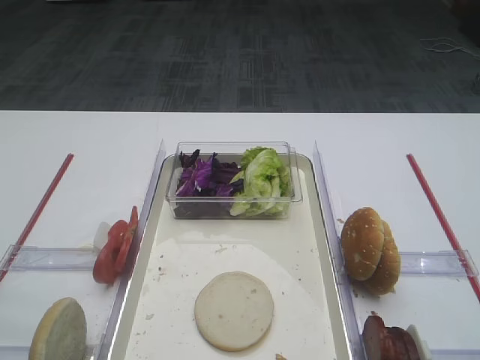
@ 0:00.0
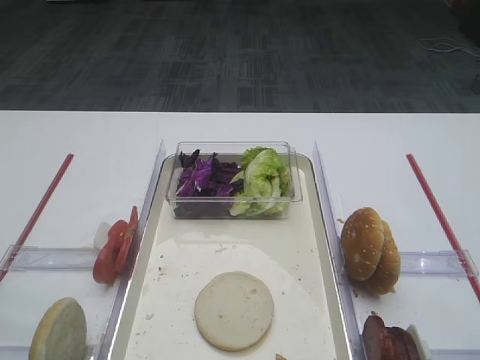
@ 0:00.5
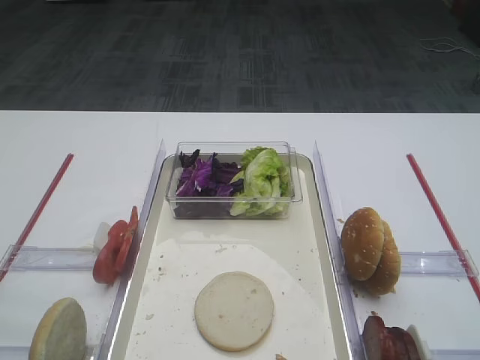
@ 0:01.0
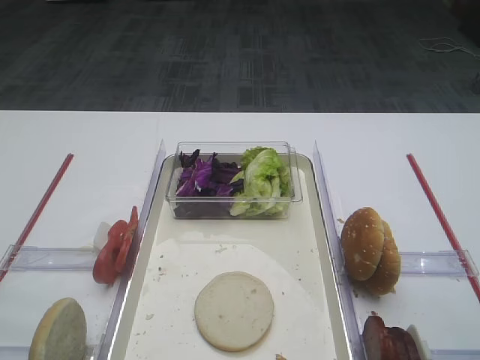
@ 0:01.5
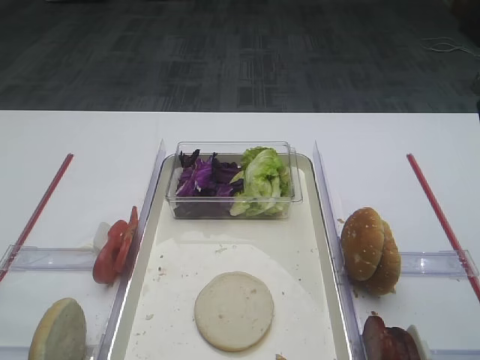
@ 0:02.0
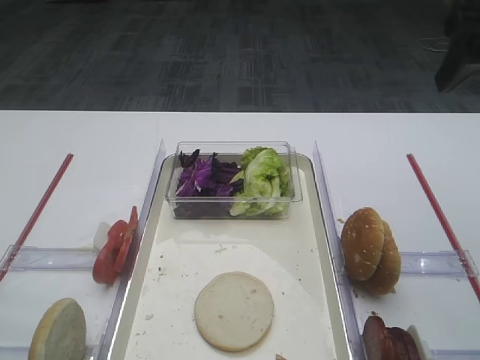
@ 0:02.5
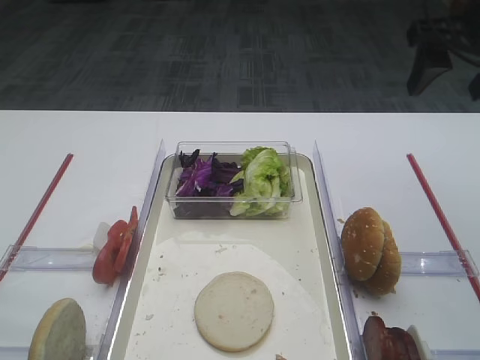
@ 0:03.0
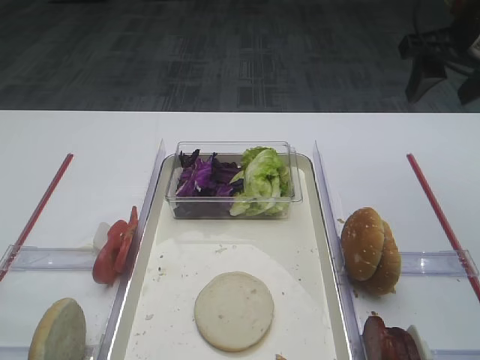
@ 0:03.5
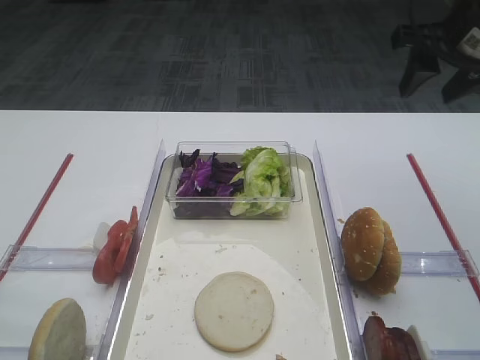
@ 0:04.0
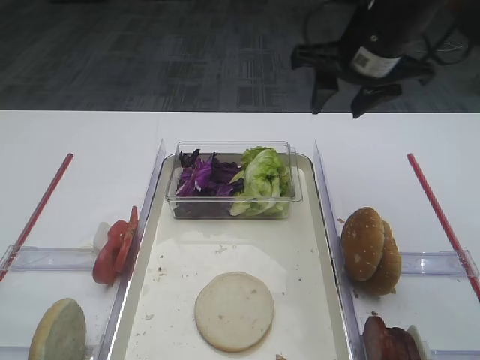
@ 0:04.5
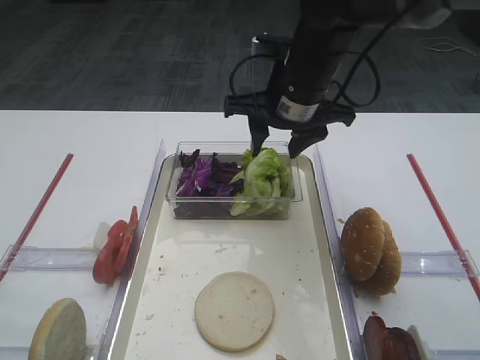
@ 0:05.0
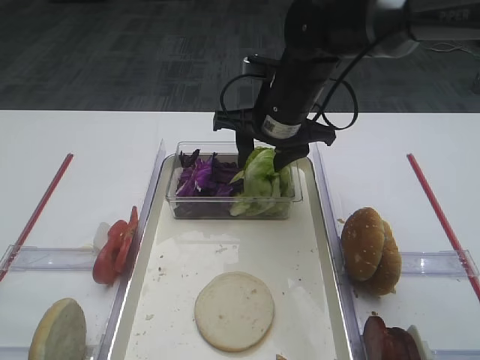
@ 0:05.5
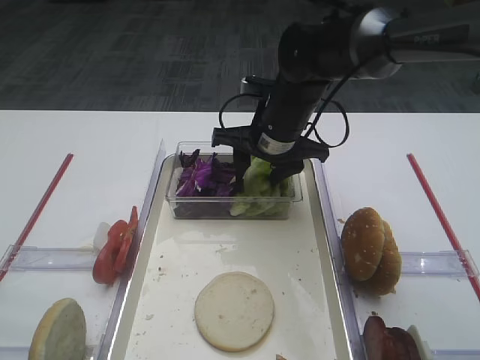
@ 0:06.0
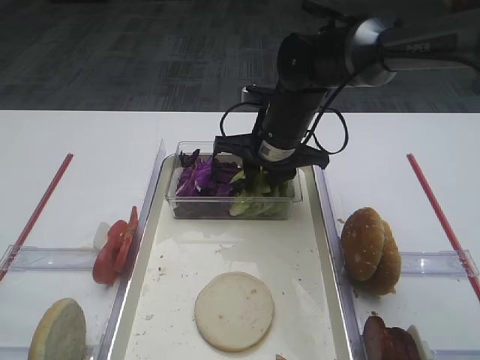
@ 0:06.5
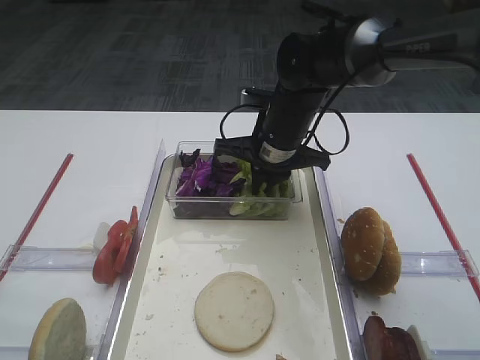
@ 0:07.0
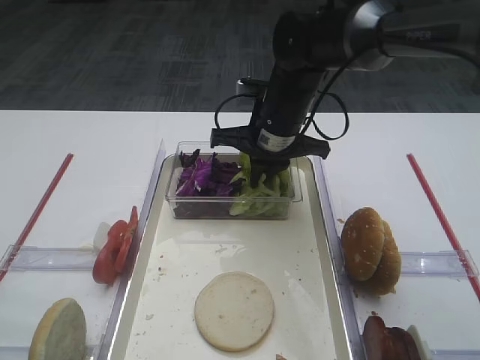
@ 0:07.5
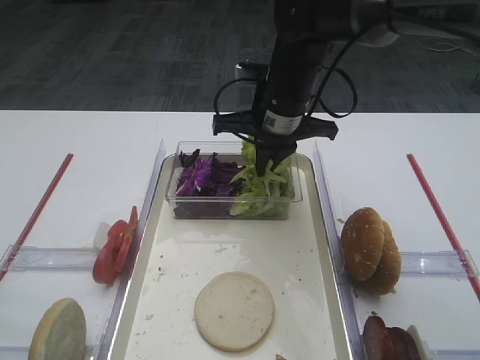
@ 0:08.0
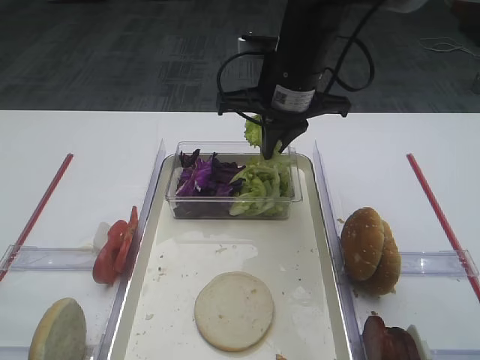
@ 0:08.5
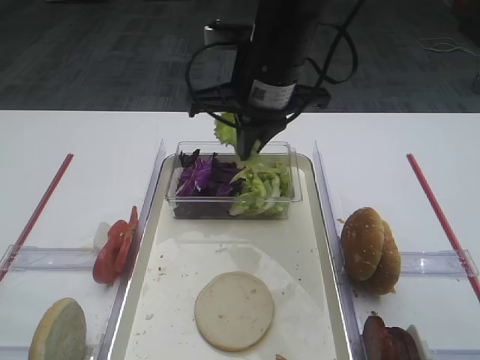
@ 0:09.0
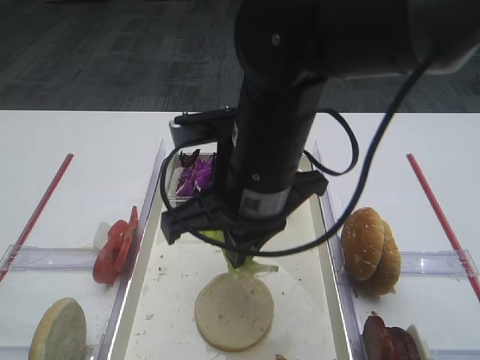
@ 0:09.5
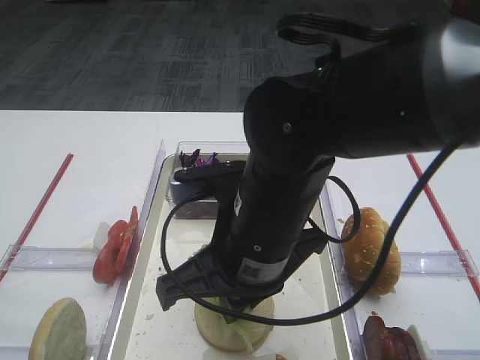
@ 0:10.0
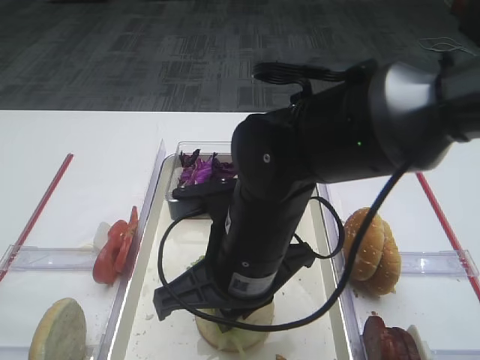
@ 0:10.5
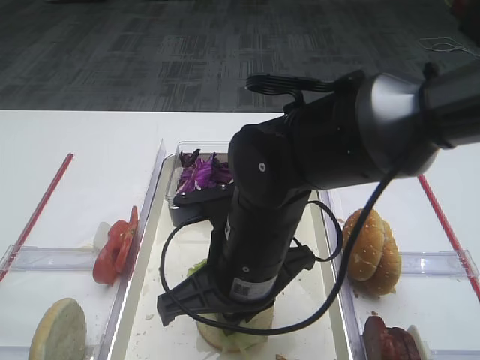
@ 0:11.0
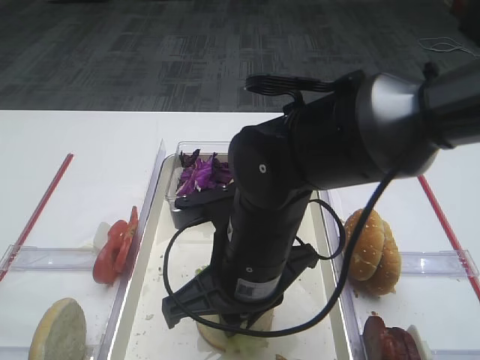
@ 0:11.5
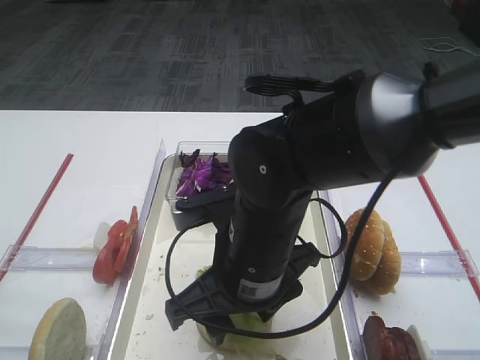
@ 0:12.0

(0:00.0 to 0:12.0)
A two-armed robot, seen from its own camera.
Step, 0:00.0 - 0:08.5: Pick up the lettuce leaf with the right gripper.
0:02.0 - 0:04.0: The right gripper shifts about 15 cm forward.
0:04.0 - 0:06.0: The right gripper is displaced to the left and downward by approximately 25 cm.
0:06.0 - 0:08.0: The right gripper closes its fingers.
0:08.0 - 0:10.0: The right gripper moves backward, roughly 20 cm.
0:10.0 - 0:12.0: The right gripper opens its fingers.

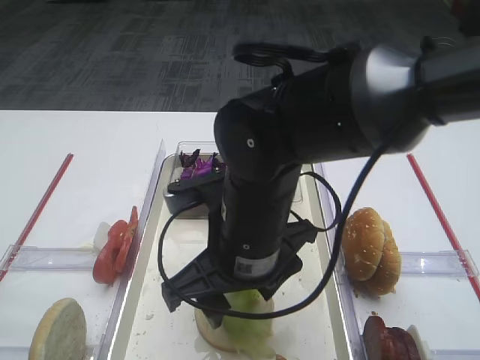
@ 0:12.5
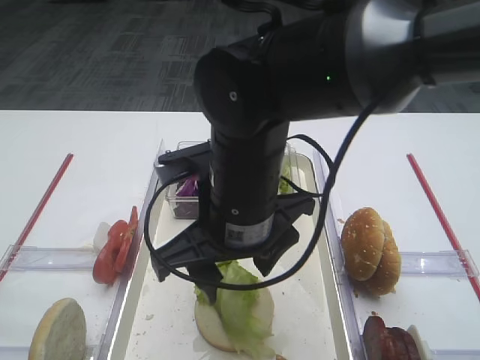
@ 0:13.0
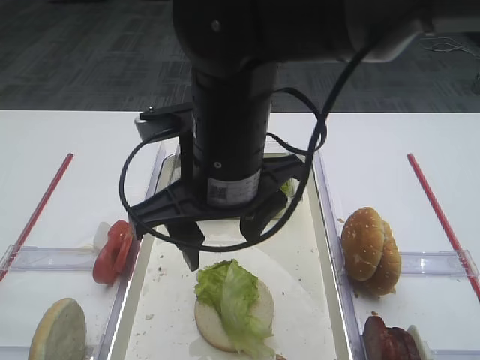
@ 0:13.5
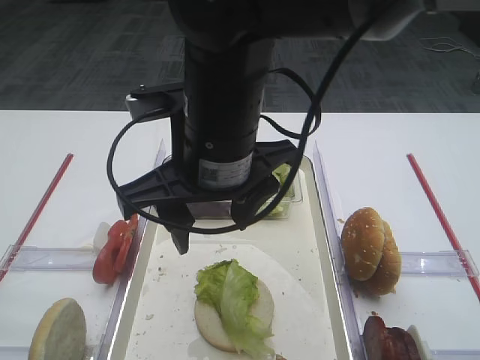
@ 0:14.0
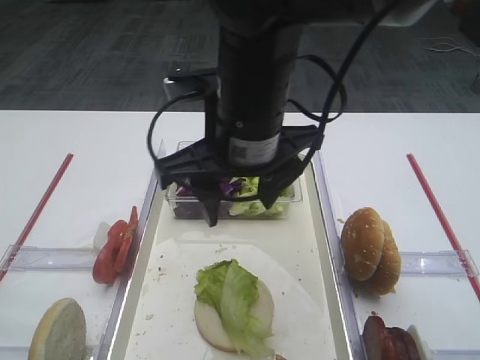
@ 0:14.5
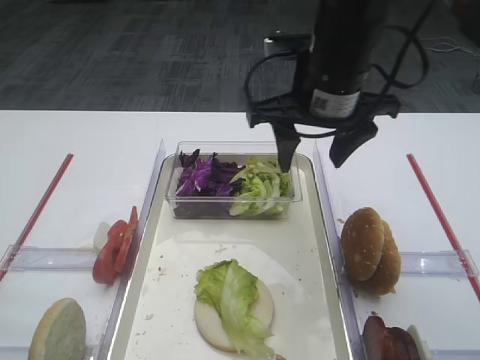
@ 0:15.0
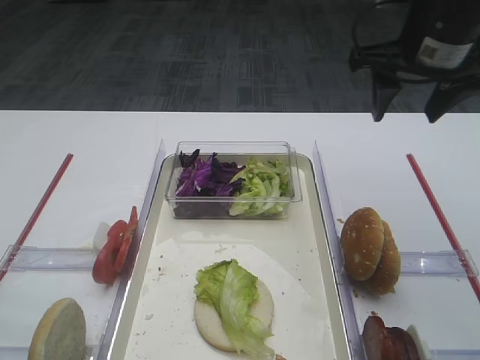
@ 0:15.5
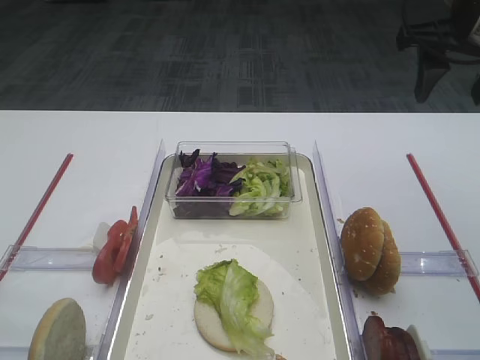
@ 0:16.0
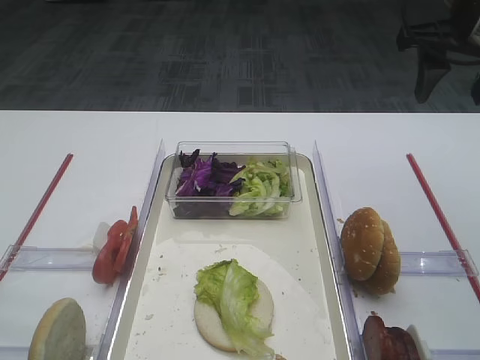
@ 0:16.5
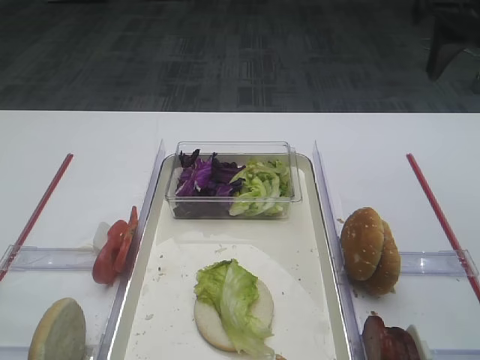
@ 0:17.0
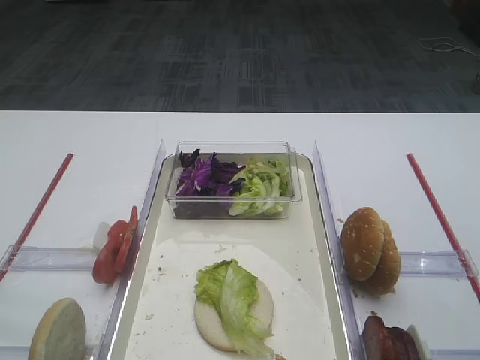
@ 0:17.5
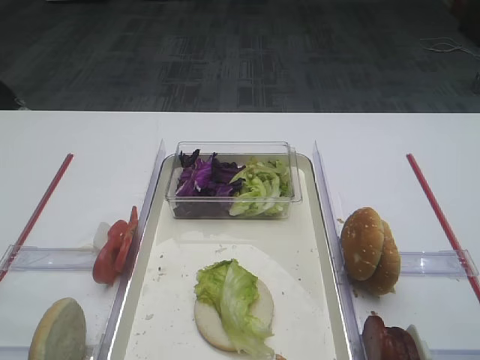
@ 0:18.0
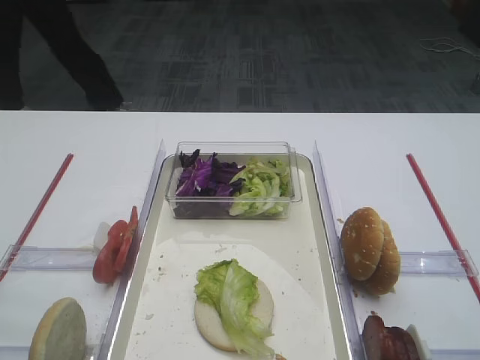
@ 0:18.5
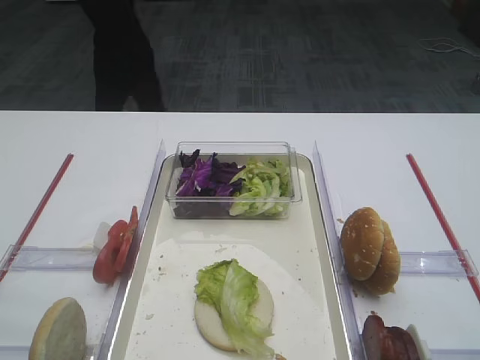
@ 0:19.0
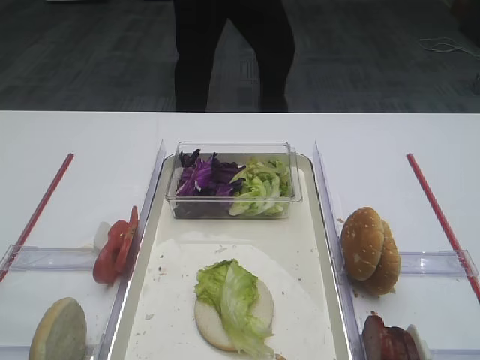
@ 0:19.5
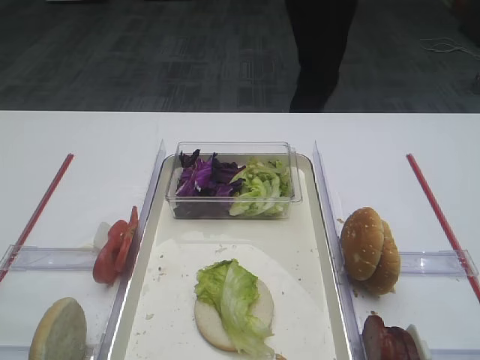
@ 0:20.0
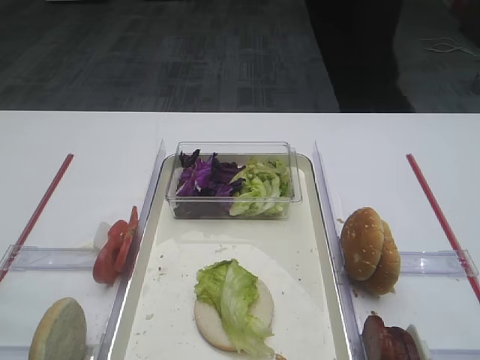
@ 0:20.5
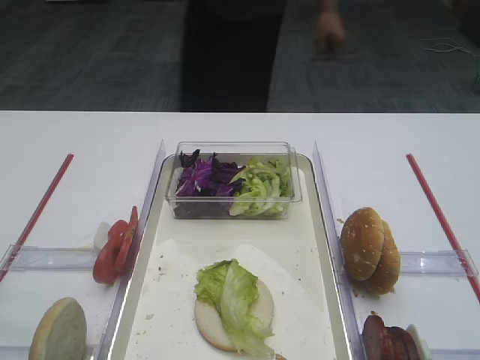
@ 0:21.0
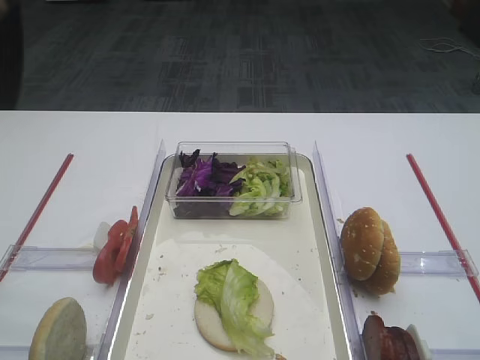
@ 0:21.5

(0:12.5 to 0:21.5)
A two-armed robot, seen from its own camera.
0:12.5 - 0:14.5: The right gripper goes approximately 10 cm upward.
0:14.5 - 0:17.0: The right gripper heads to the right, covering approximately 25 cm.
0:17.0 - 0:19.5: The right gripper moves backward, some 35 cm.
0:19.5 - 0:21.5: The grippers make only small movements.

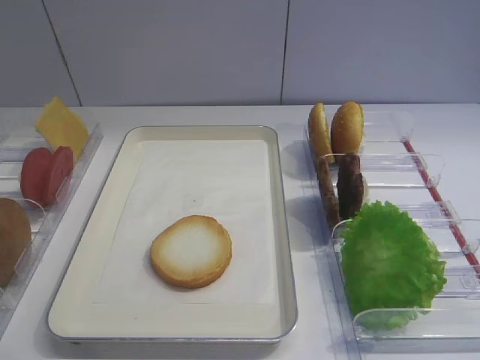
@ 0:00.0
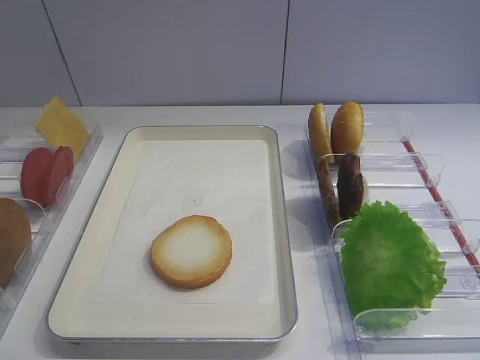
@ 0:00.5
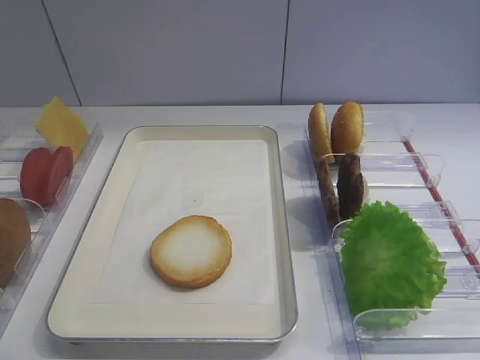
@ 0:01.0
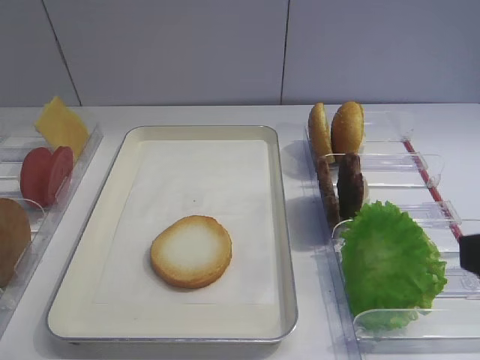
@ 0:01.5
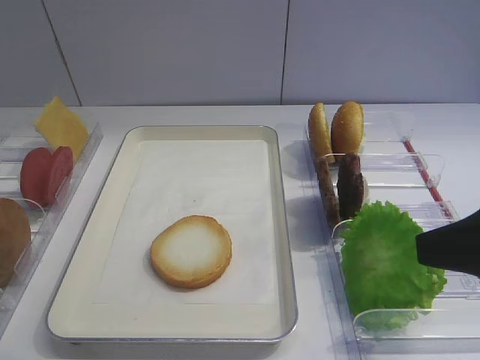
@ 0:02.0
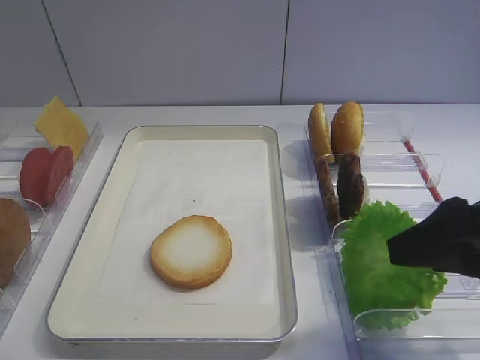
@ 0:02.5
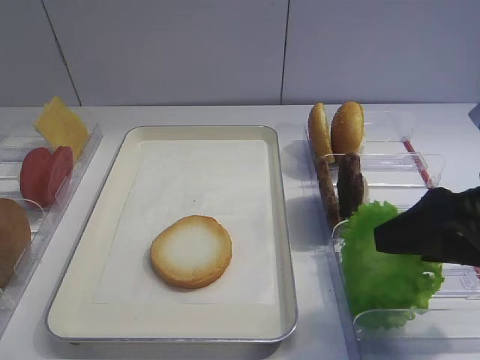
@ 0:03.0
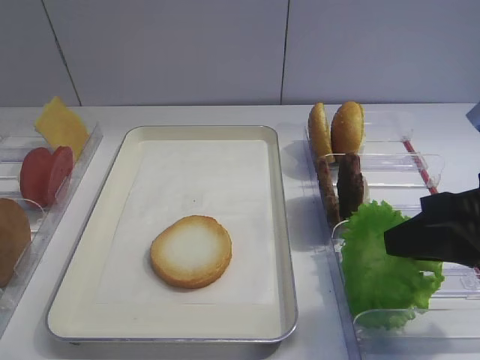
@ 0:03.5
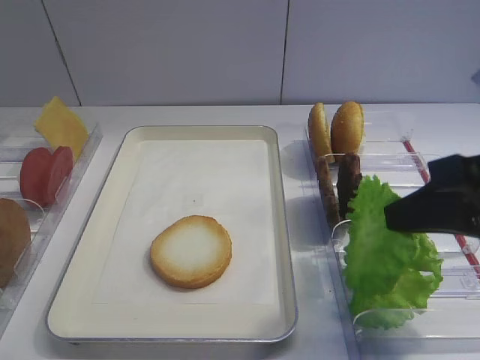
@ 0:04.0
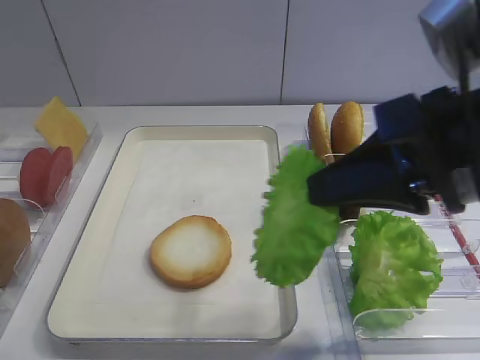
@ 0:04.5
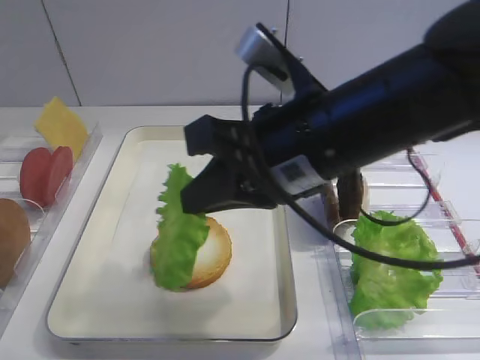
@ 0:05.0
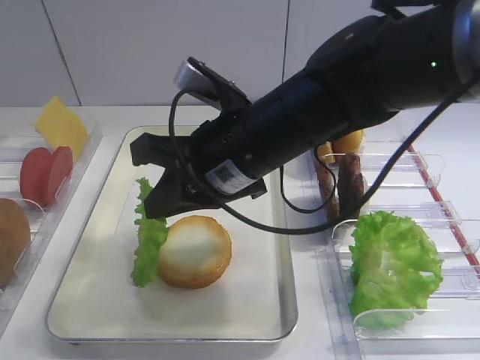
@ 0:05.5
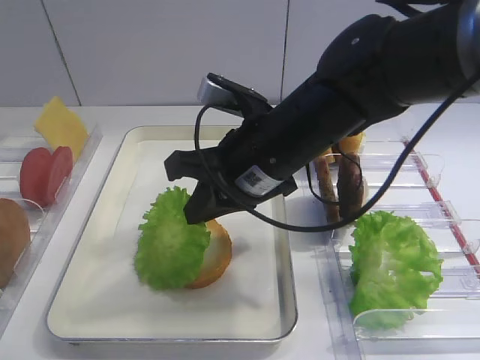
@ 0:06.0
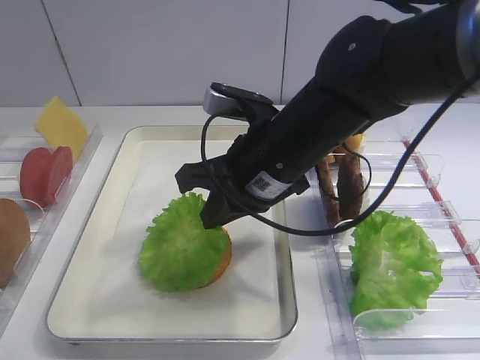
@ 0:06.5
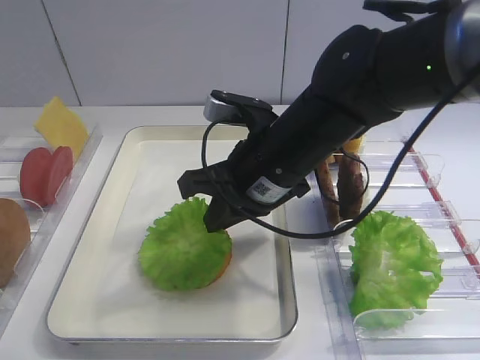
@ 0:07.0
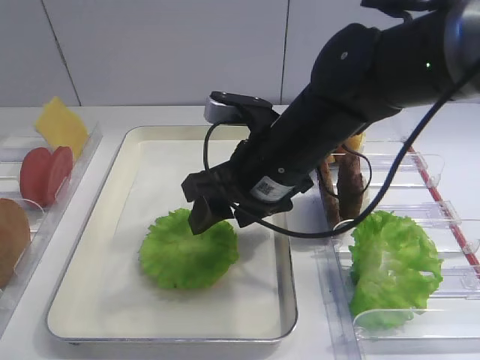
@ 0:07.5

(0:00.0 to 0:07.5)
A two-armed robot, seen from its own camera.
Step, 0:00.0 - 0:04.0: Pick up the lettuce leaf with the right gripper.
0:02.0 - 0:04.0: The right gripper heads forward, covering roughly 5 cm, and closes up.
0:04.0 - 0:05.5: The right gripper shifts approximately 20 cm to the left and forward.
0:05.5 - 0:07.5: The right gripper opens.
